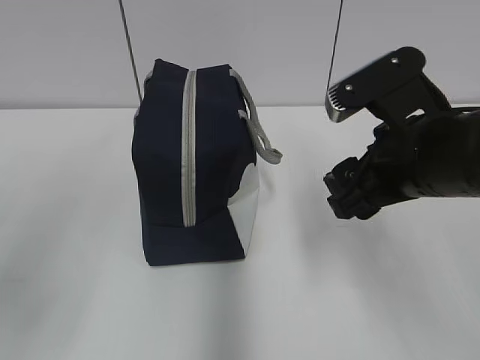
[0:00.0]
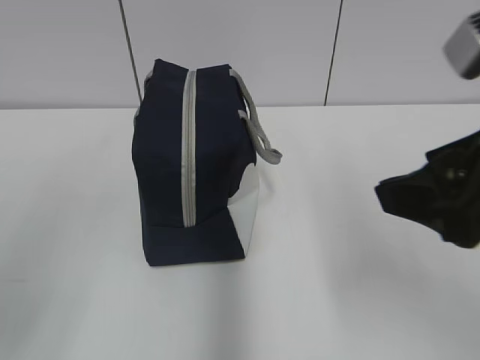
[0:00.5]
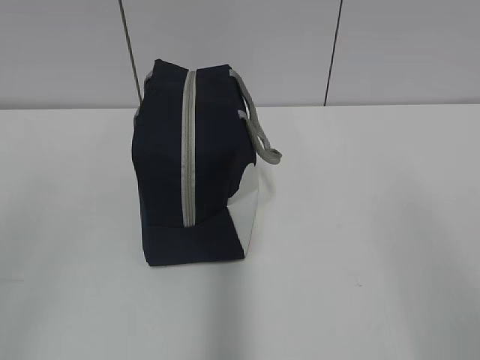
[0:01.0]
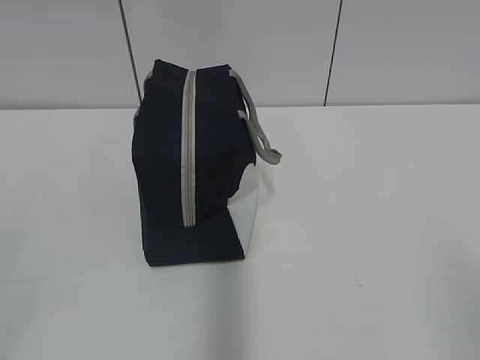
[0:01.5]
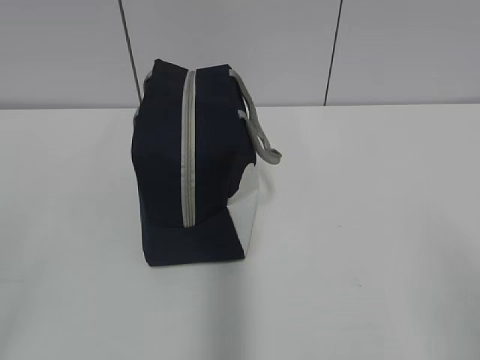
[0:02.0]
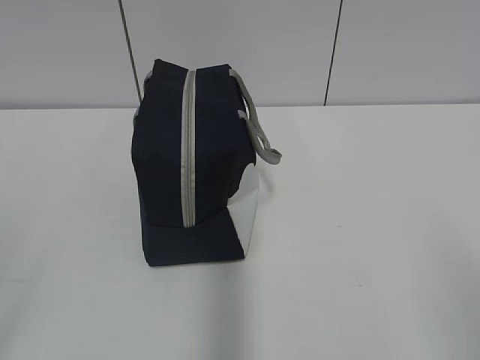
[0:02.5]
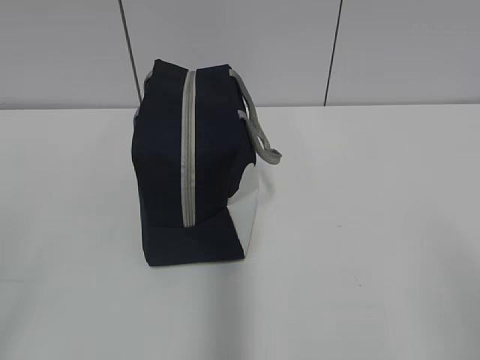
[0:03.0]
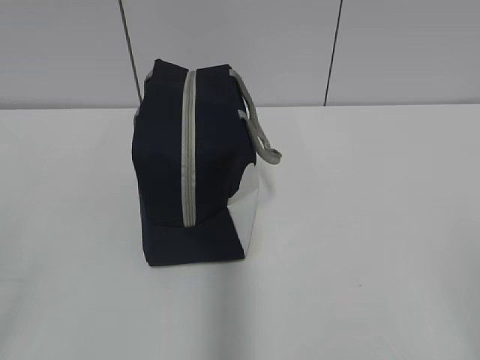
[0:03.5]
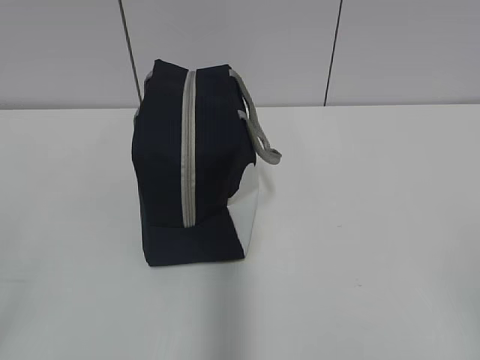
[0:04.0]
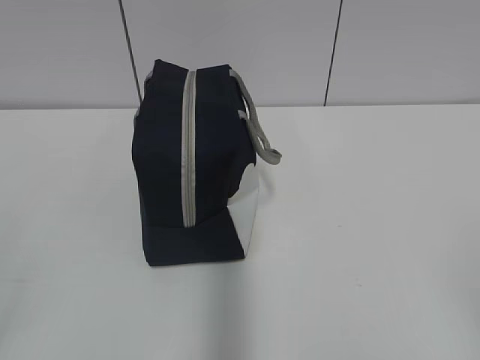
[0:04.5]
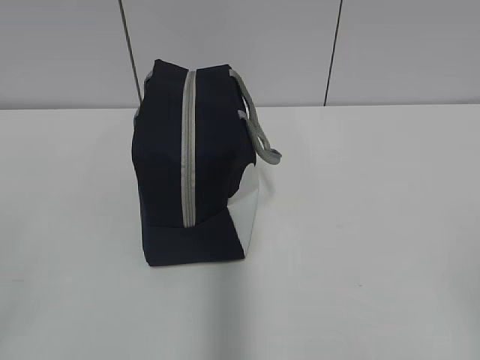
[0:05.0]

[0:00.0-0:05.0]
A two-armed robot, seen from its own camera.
0:00.0 to 0:02.5: The right gripper moves backward and to the right, some 25 cm.

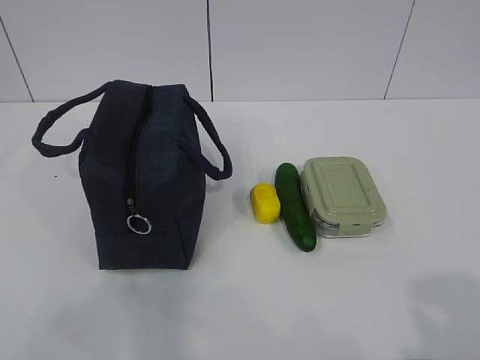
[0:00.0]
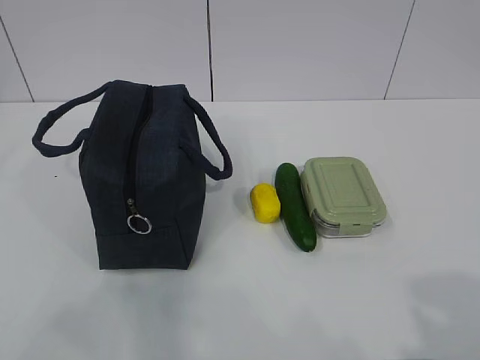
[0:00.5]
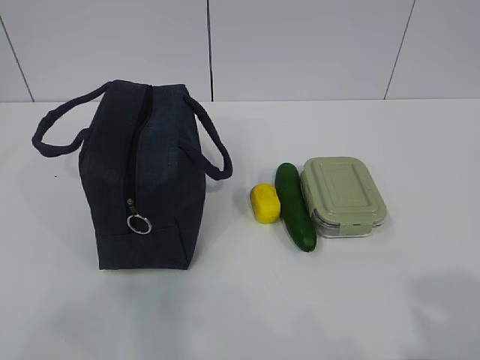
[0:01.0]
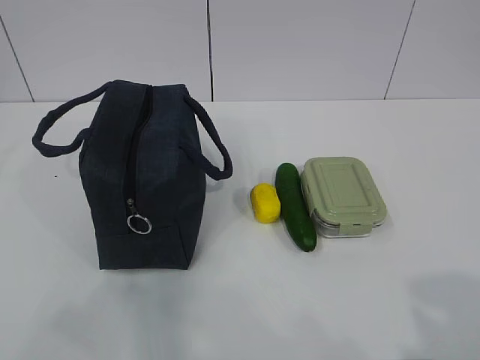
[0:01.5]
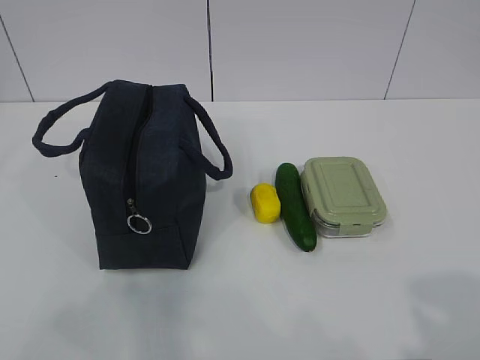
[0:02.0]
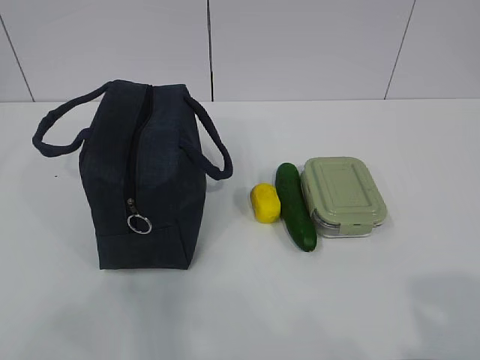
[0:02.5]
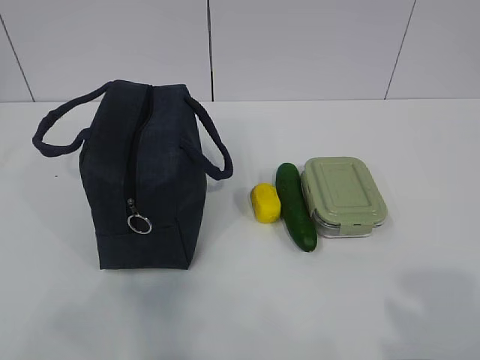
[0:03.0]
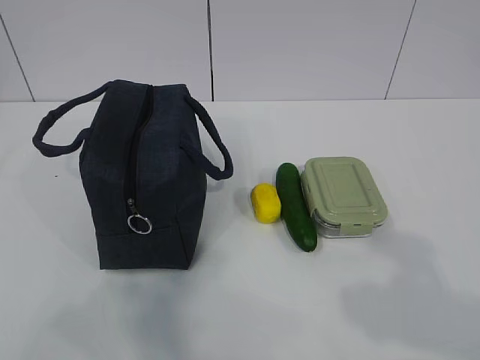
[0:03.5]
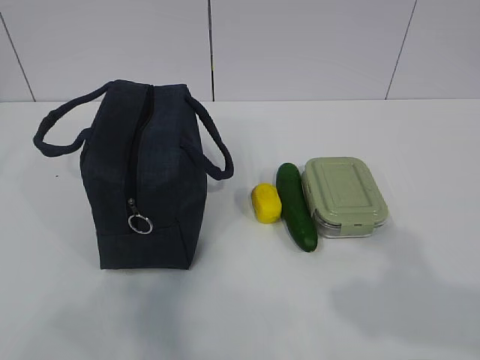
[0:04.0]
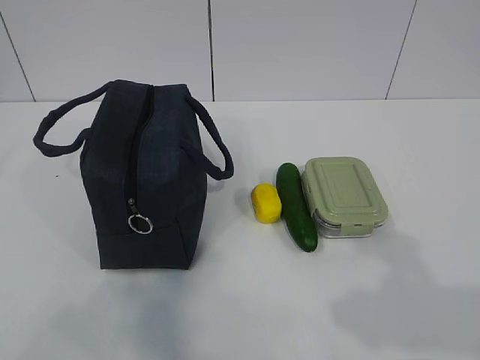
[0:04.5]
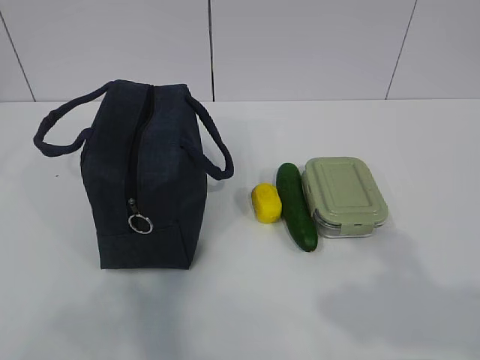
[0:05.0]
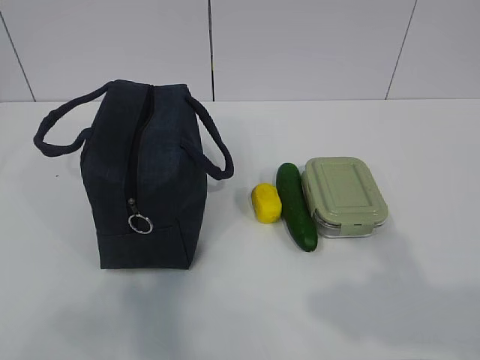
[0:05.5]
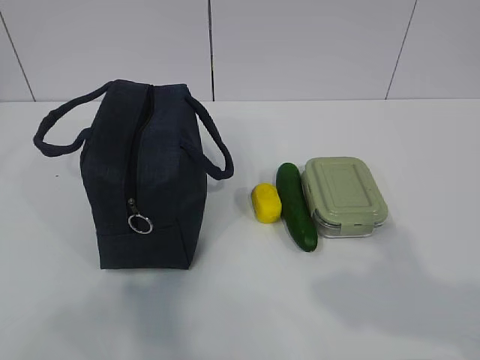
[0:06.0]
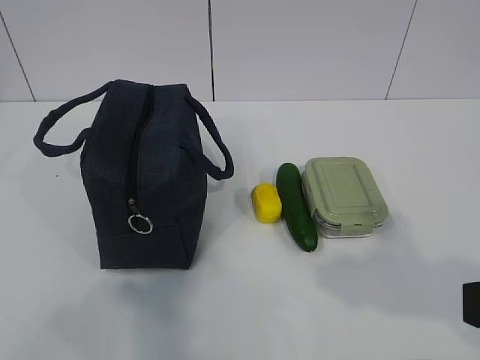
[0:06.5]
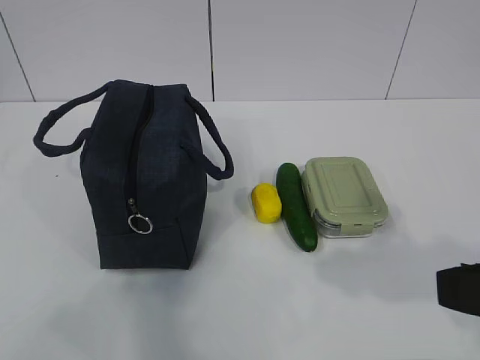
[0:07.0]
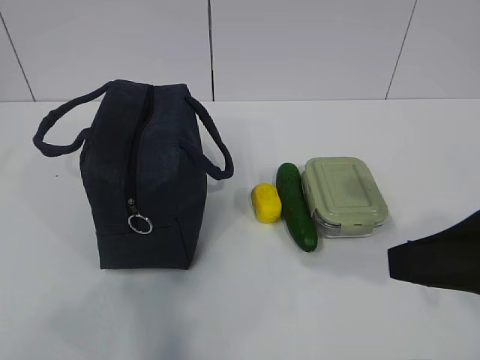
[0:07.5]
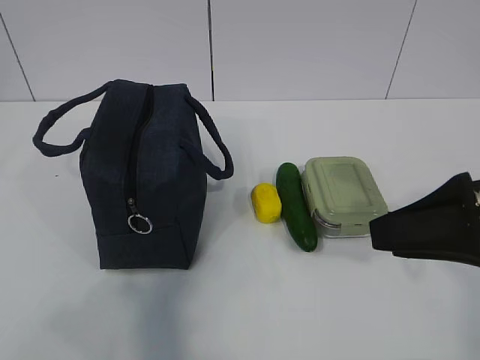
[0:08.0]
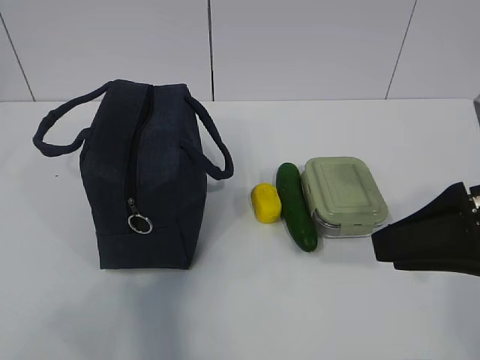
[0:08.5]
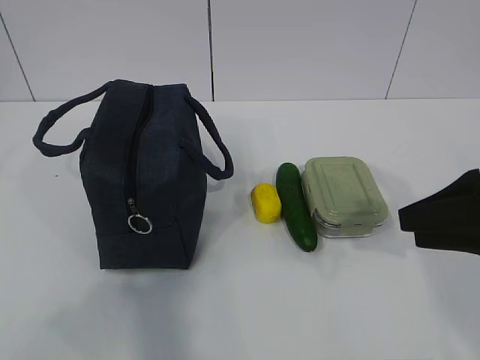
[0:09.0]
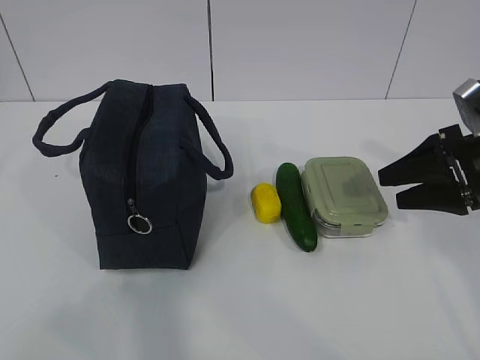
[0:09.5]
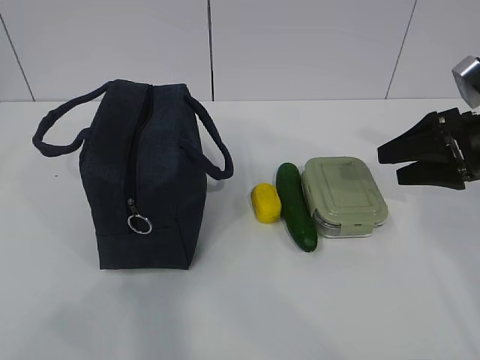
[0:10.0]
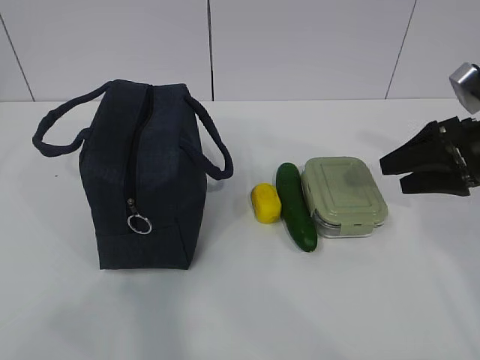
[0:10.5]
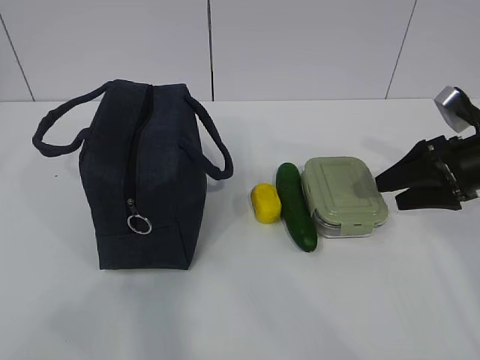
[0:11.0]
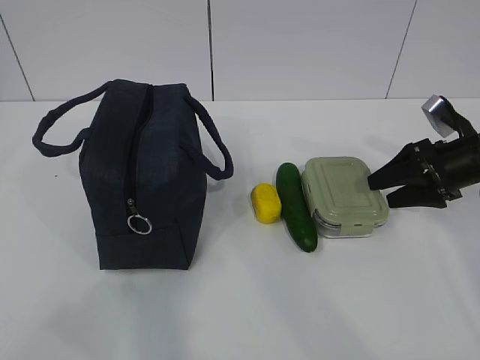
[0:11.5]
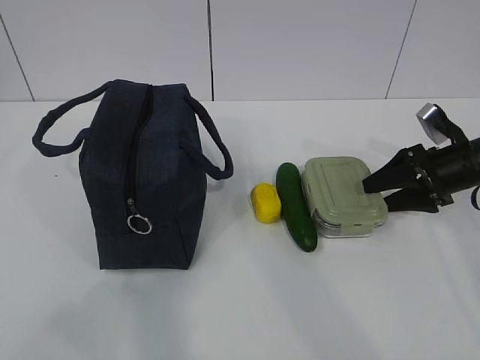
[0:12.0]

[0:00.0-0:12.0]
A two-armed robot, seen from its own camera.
0:02.0 to 0:04.0: The right gripper shifts approximately 5 cm forward.
0:06.0 to 0:08.0: The right gripper shifts roughly 15 cm forward.
0:08.0 to 0:10.0: The right gripper travels forward, to the right and downward by approximately 20 cm, and opens up.
0:10.0 to 0:12.0: The right gripper heads downward and forward, covering approximately 10 cm.

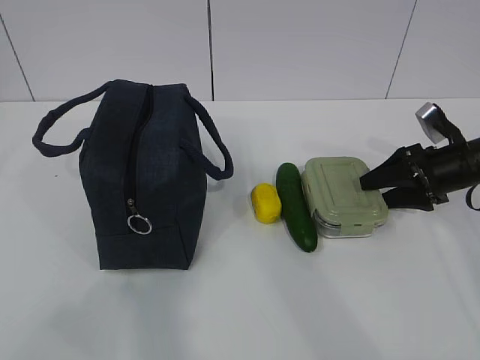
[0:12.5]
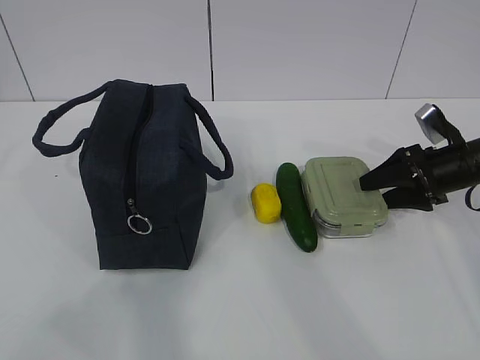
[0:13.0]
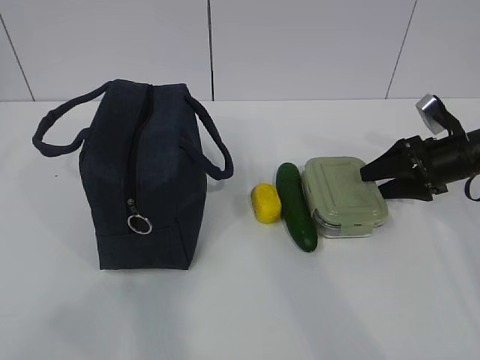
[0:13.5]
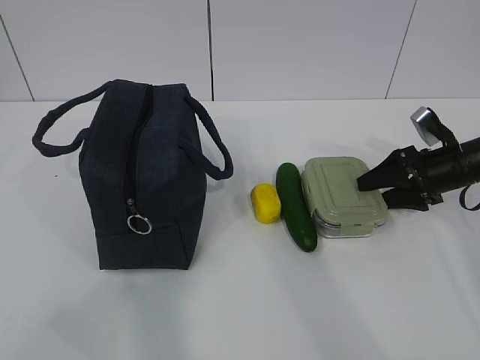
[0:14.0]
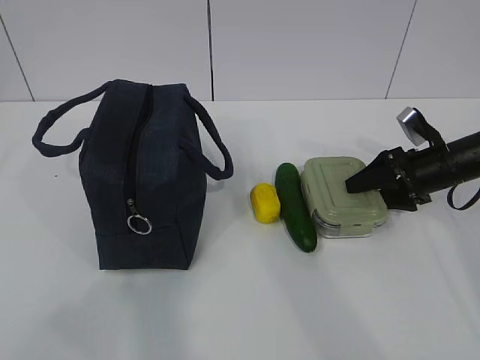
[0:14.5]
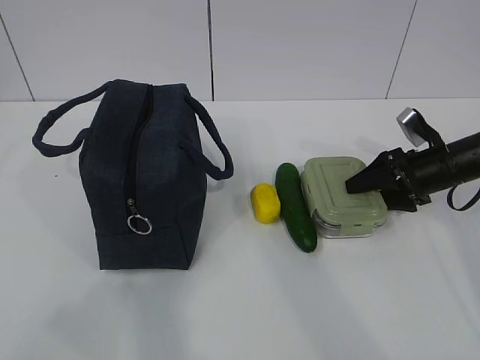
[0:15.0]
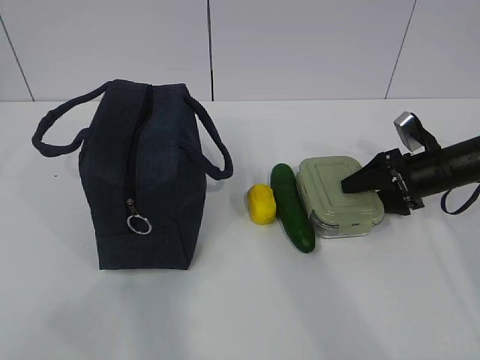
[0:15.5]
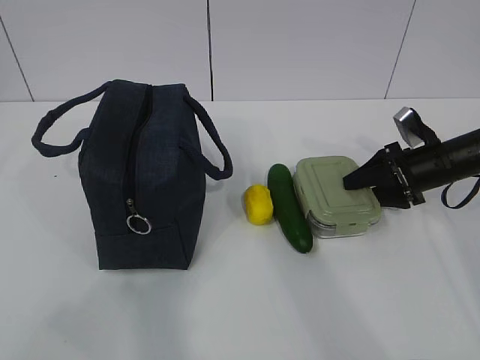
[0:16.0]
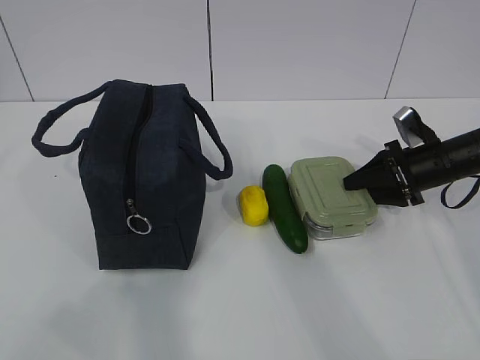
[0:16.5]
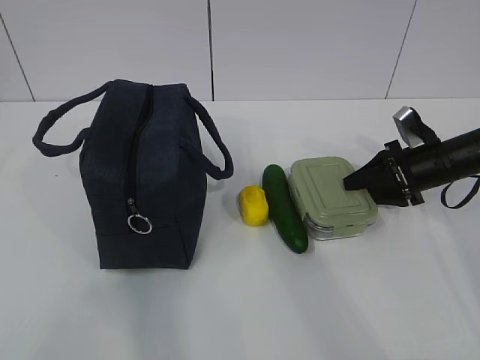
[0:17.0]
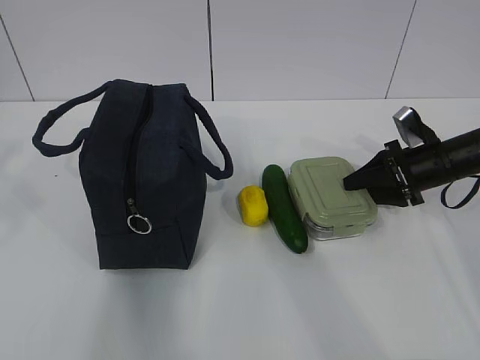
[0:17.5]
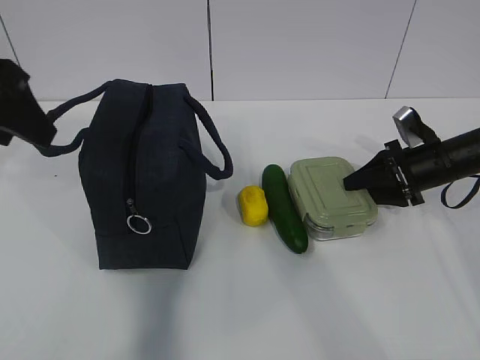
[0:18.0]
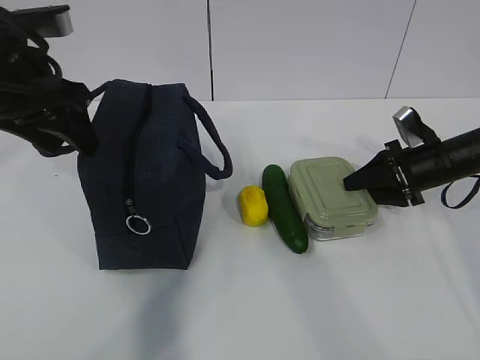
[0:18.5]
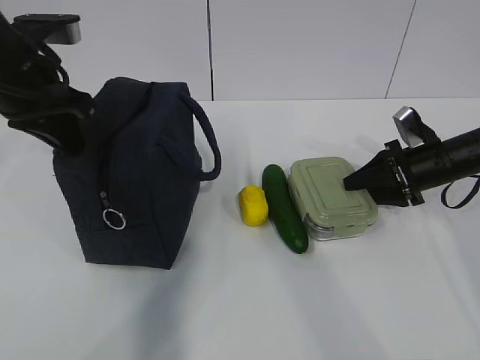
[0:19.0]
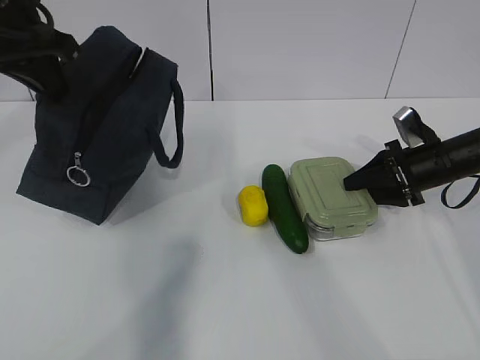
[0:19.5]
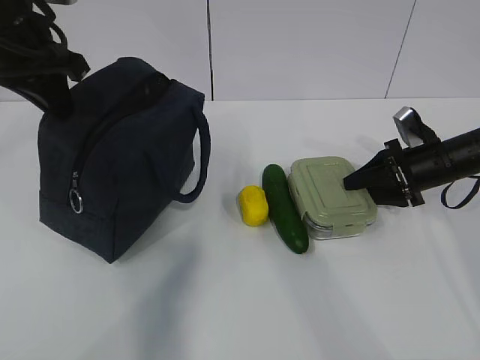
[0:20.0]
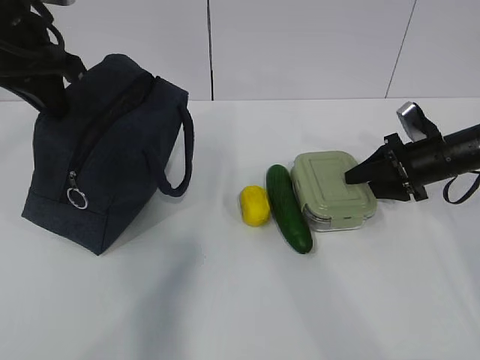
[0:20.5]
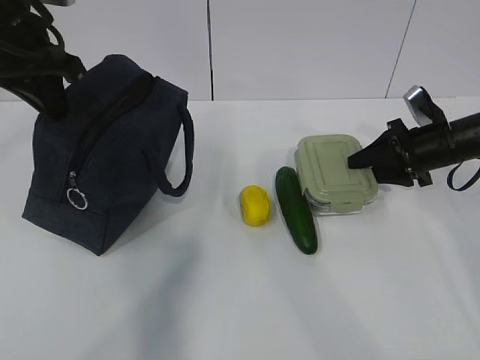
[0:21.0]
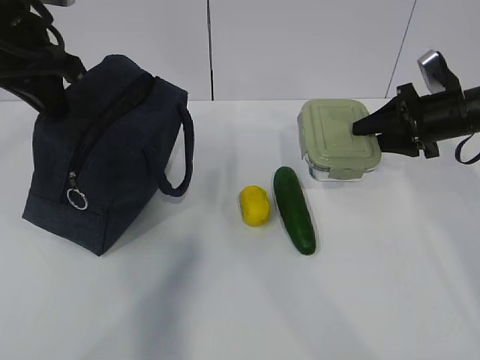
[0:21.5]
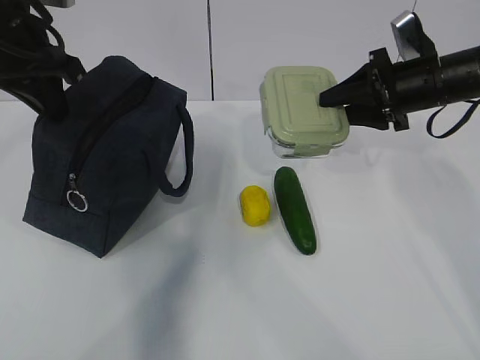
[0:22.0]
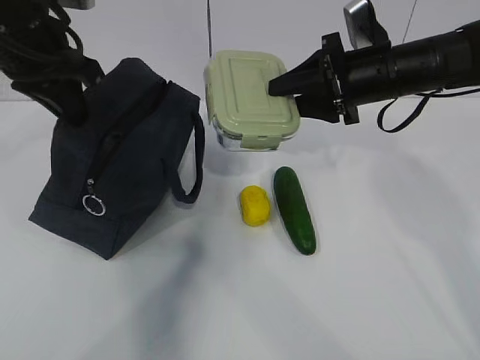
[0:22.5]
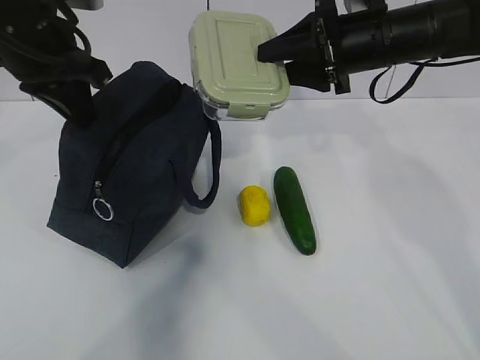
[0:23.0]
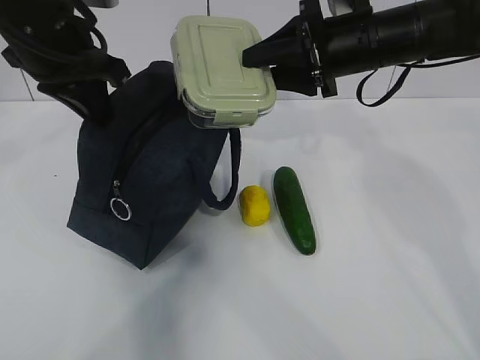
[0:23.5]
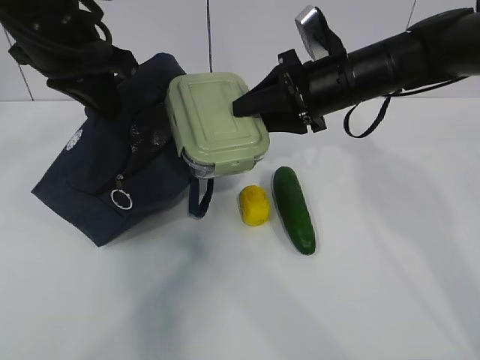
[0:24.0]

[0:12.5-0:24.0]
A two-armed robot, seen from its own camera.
Step, 0:14.0 to 0:19.5: Grab the lunch bag with your left hand.
Step, 0:20.0 to 0:22.5: Place it into the bag with your right hand.
0:12.5 to 0:14.5: The grippers move only a little.
0:14.5 to 0:16.5: The right gripper closes.
0:16.5 to 0:18.5: The left gripper is displaced forward by roughly 35 cm, and opens its fingers.
0:18.5 to 0:20.0: The left gripper closes its fingers.
0:20.0 to 0:22.0: The right gripper moves upward and to the left, approximately 15 cm.
0:22.0 to 0:24.0: The right gripper goes roughly 10 cm to the left. The left gripper heads to the right, covering approximately 5 cm.
